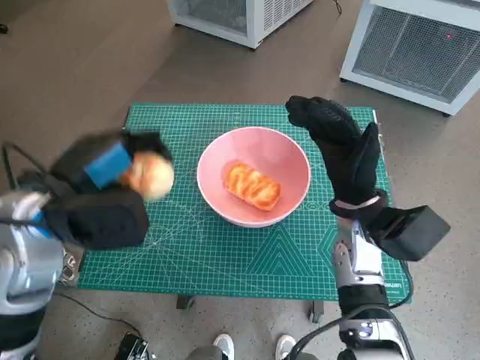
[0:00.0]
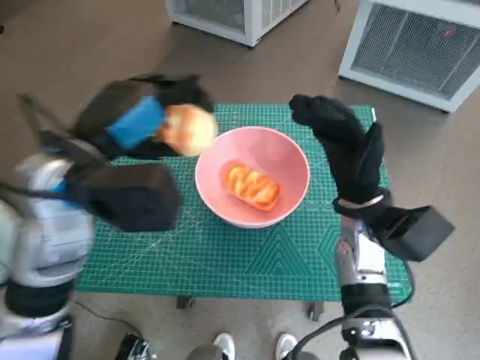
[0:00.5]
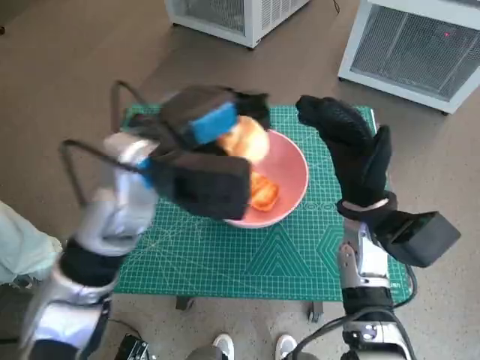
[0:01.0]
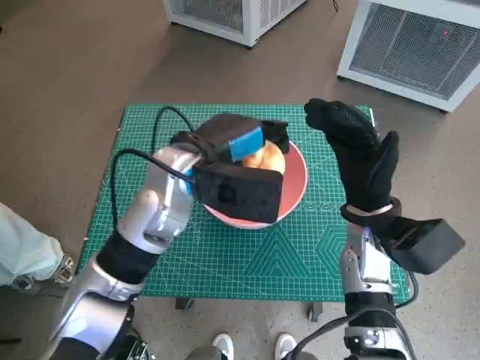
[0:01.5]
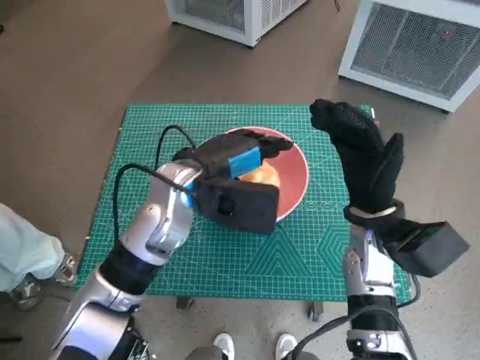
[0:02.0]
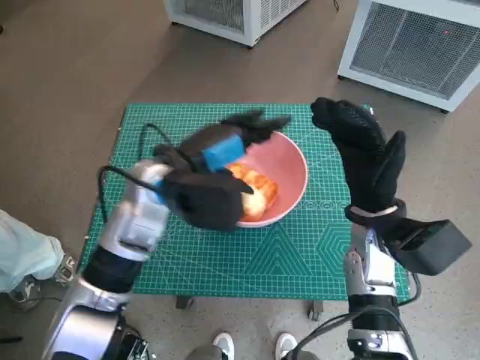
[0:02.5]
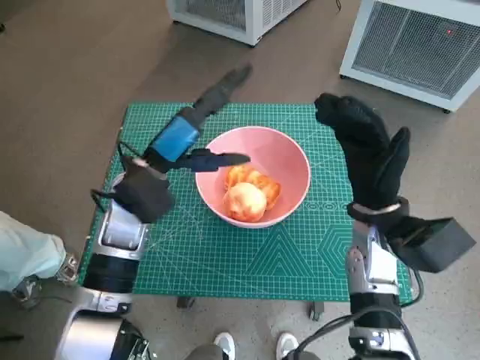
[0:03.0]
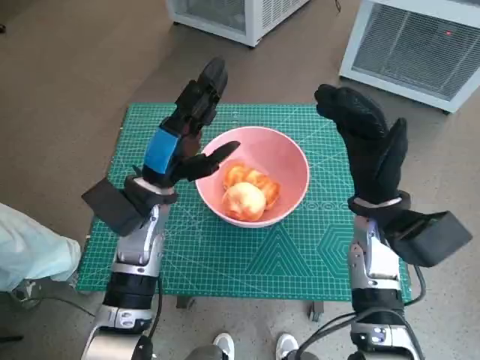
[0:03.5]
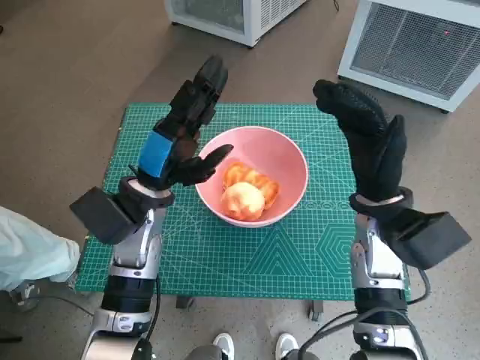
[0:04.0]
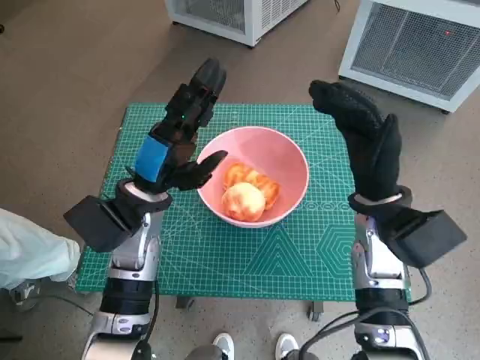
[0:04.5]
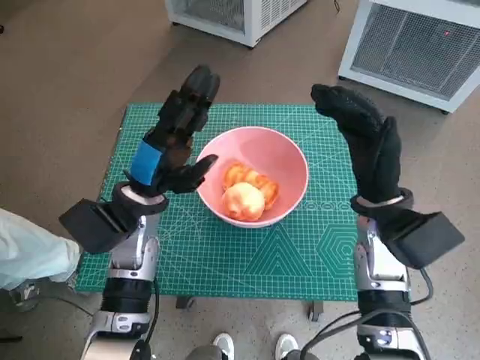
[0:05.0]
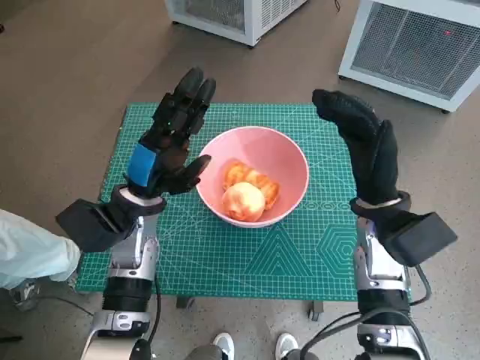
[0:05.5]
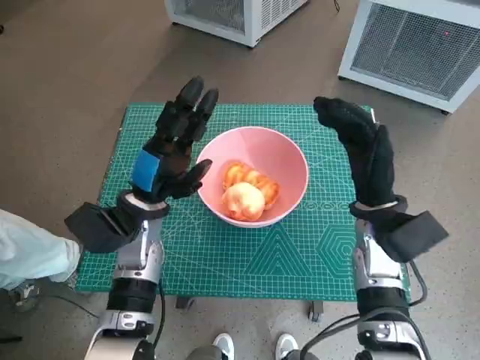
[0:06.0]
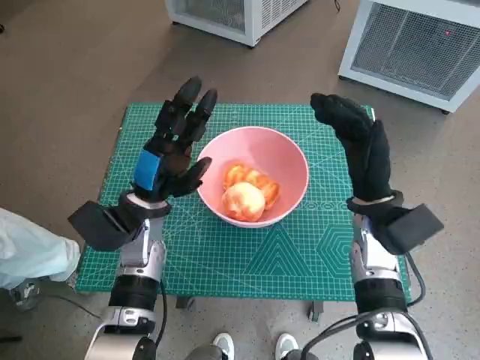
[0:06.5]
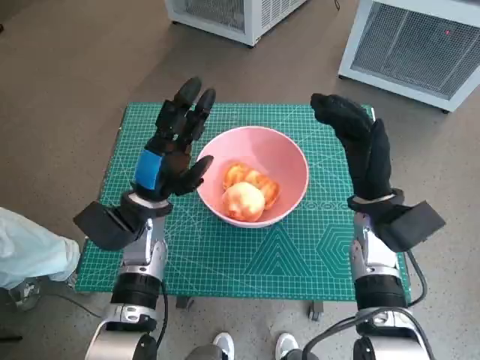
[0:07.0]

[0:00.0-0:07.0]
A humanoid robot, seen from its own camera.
Task of the whole recording: Push the bowl into the center of the table and put the bread into the bowl.
0:00.0 to 0:02.0: The left hand travels to the right and forward by approximately 15 cm.
0:02.0 to 0:03.5: The left hand shifts approximately 5 cm to the left.
0:03.5 to 0:07.0: The hands stay close to where they were, moving slightly.

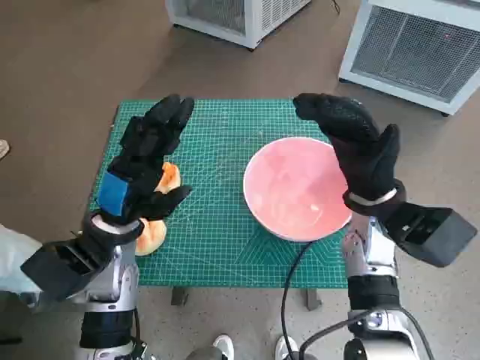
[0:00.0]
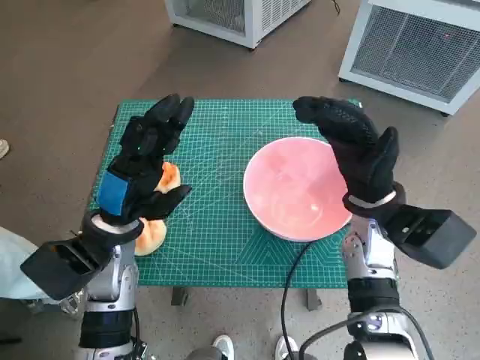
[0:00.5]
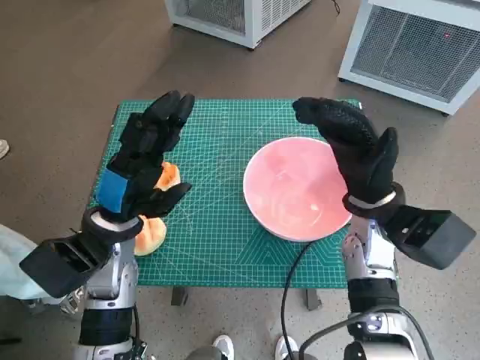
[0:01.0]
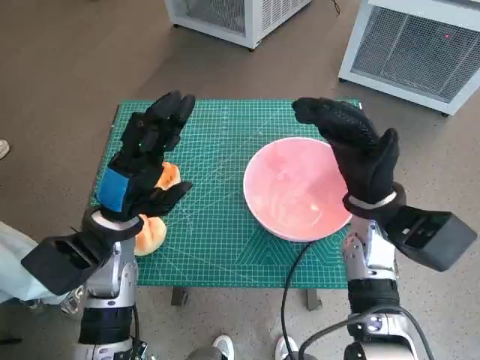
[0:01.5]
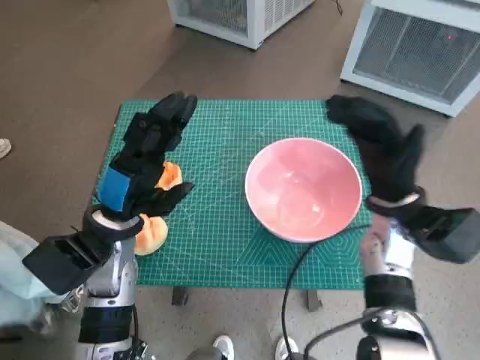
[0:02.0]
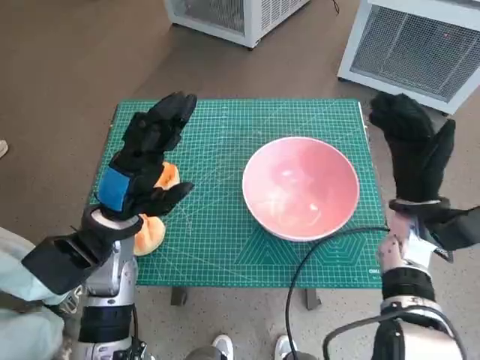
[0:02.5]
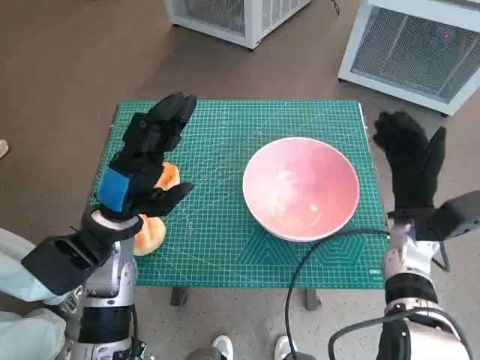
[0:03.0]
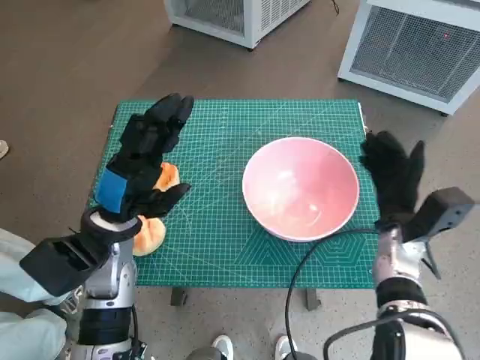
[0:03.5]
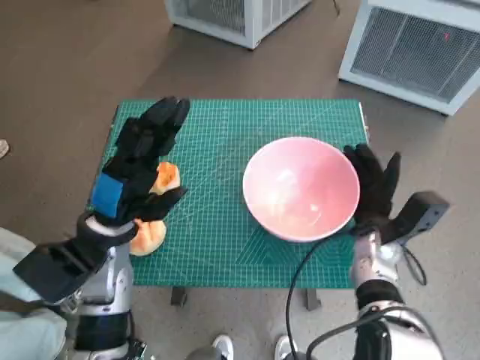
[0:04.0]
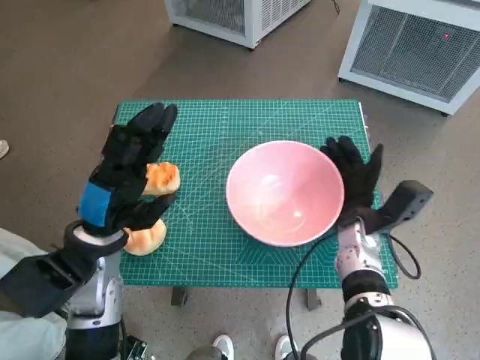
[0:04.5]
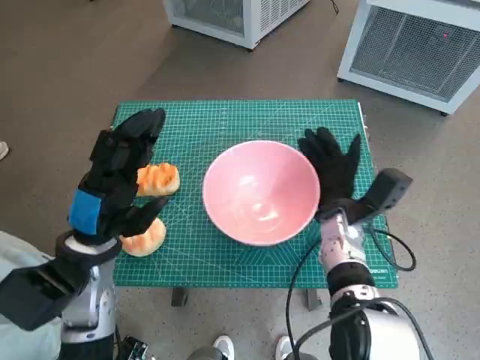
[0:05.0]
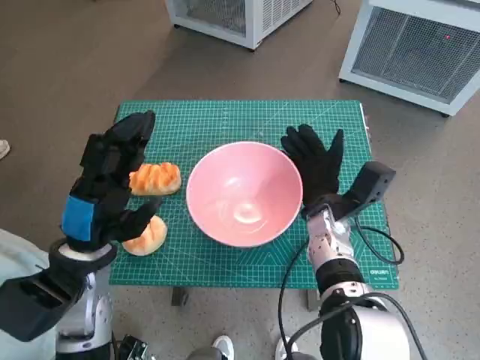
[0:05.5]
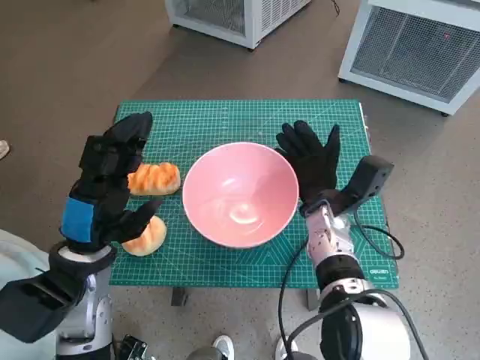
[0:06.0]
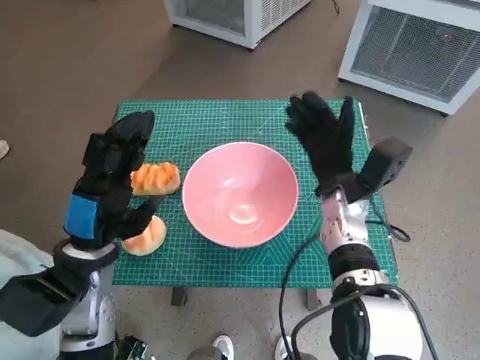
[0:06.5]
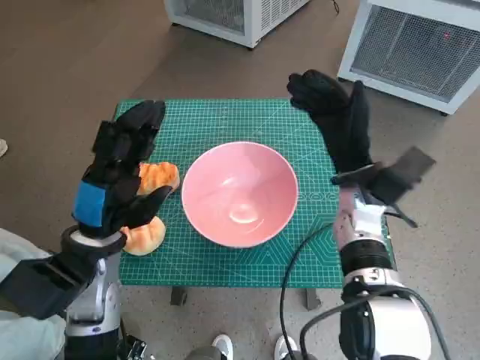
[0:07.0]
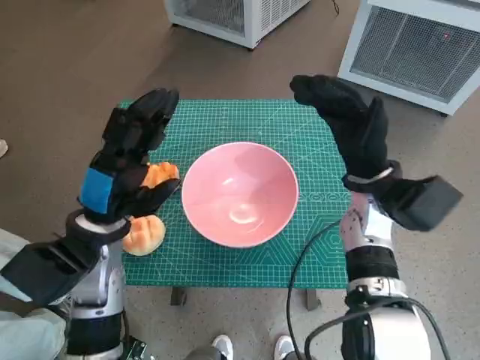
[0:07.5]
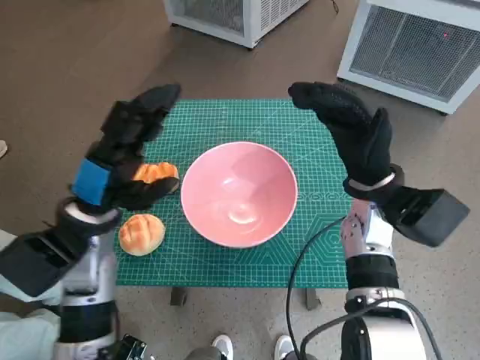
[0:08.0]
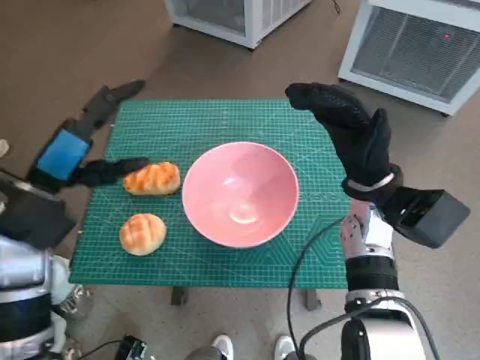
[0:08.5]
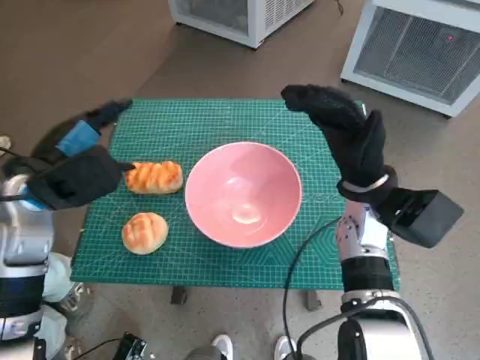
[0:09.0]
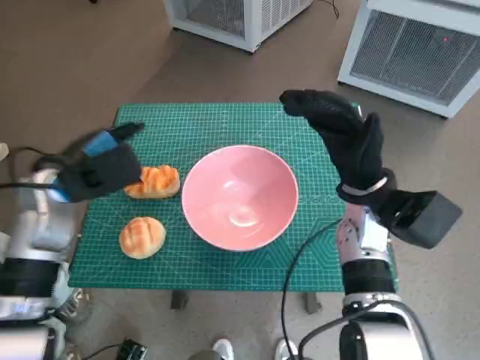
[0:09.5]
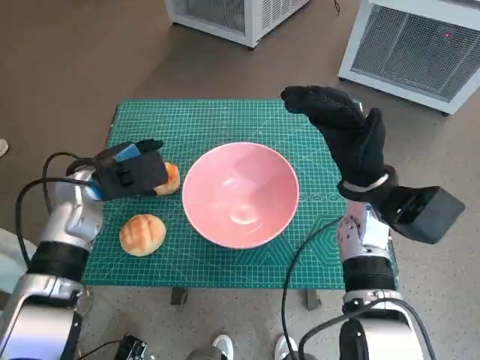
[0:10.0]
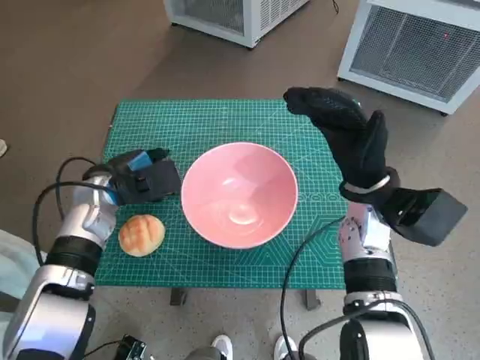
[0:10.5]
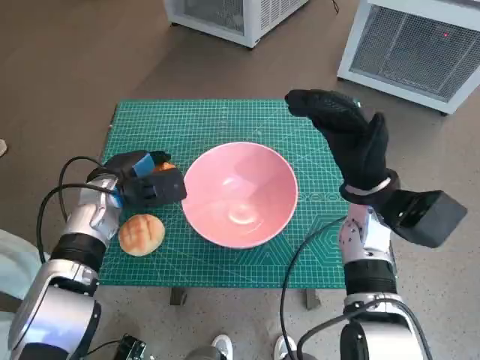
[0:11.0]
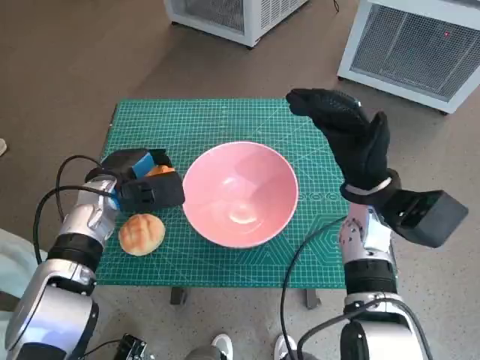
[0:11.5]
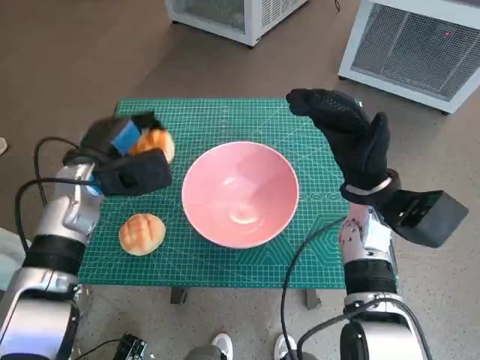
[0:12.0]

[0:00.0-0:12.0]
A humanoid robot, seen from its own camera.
Task of the whole recording: Push the bowl into the center of the table and put the bread into the bowl.
Step, 0:00.0 to 0:06.0: Move the pink bowl to the center of table with right hand.
Step, 0:06.5 to 0:11.0: Grasp the long bread with left hand.
0:02.0 to 0:04.0: The right hand goes some 10 cm downward.
0:04.0 to 0:06.0: The right hand heads to the left, covering approximately 10 cm.
0:06.0 to 0:08.0: The right hand heads upward and to the right, covering roughly 10 cm.
0:08.0 to 0:10.0: The left hand goes roughly 5 cm forward.
0:10.0 to 0:12.0: The hands stay close to where they were, moving slightly.

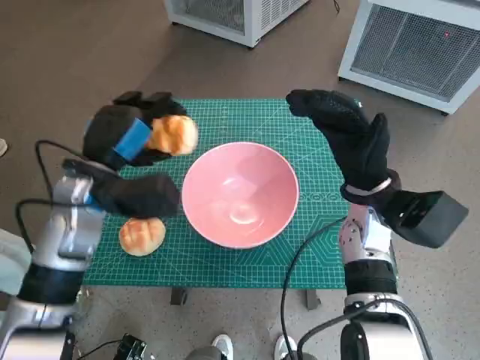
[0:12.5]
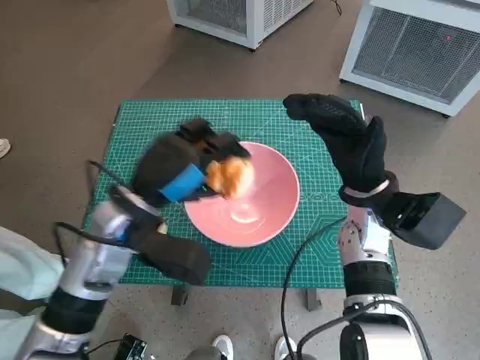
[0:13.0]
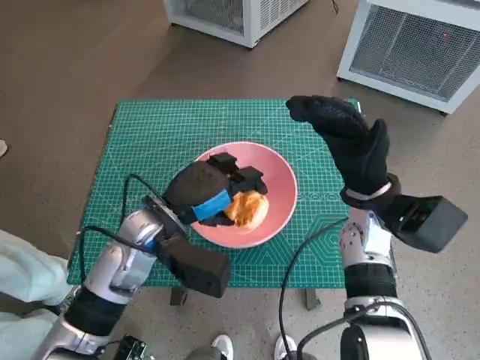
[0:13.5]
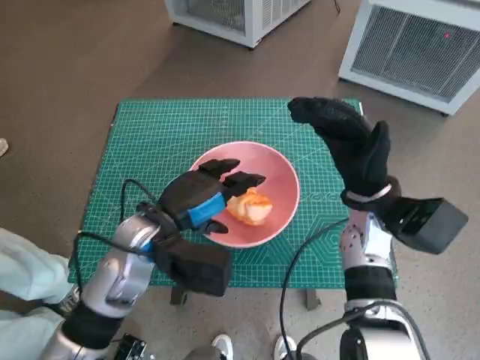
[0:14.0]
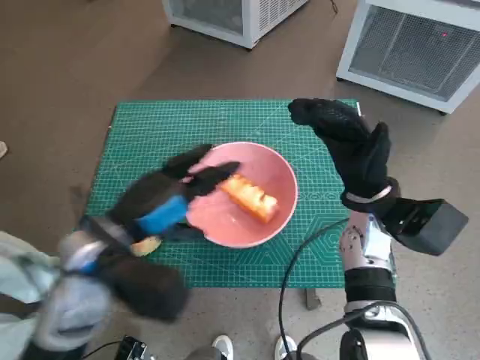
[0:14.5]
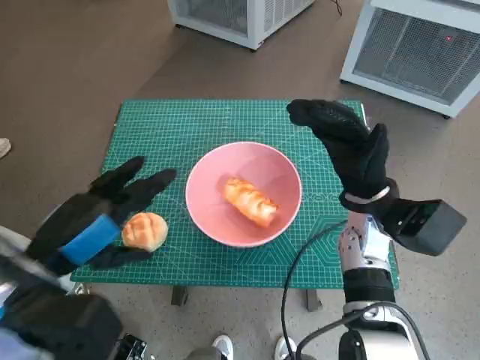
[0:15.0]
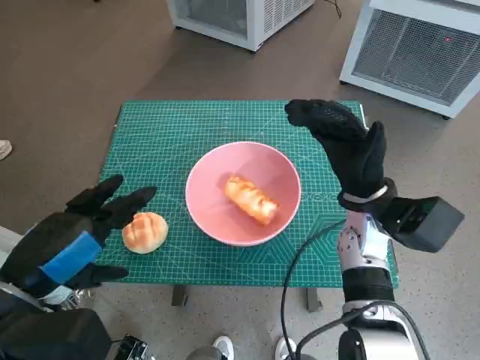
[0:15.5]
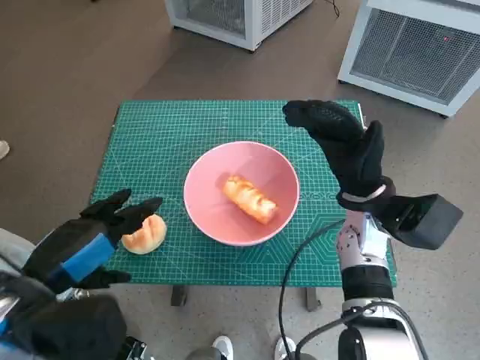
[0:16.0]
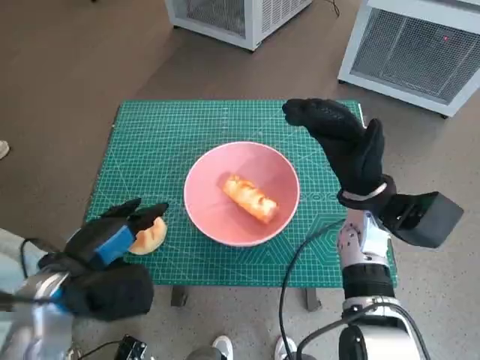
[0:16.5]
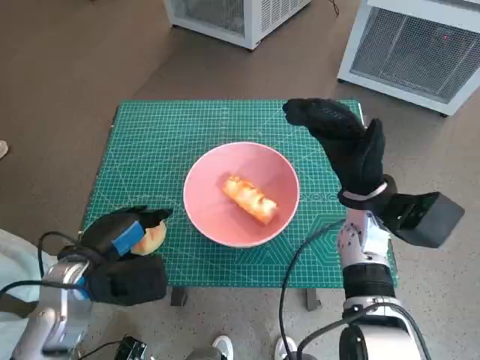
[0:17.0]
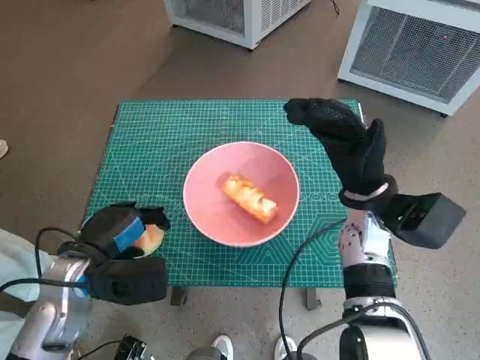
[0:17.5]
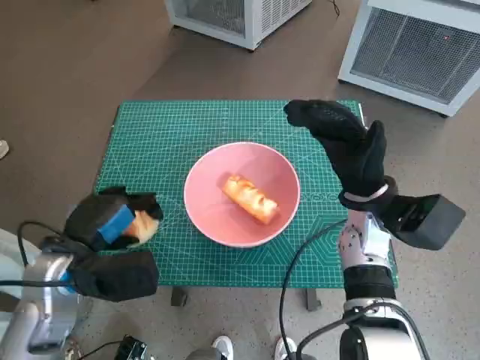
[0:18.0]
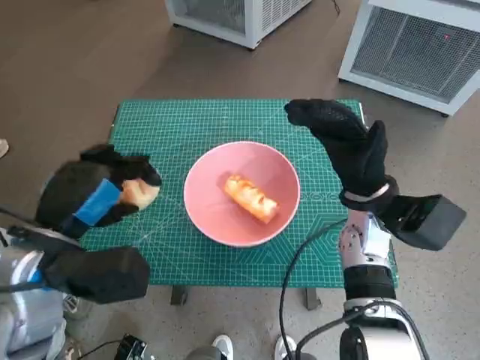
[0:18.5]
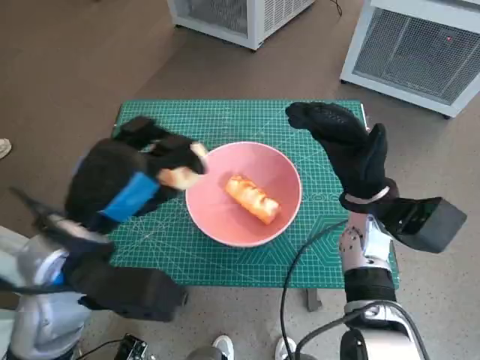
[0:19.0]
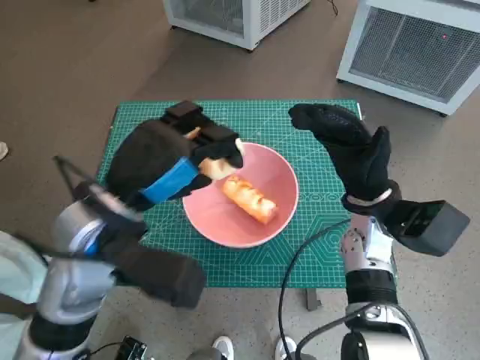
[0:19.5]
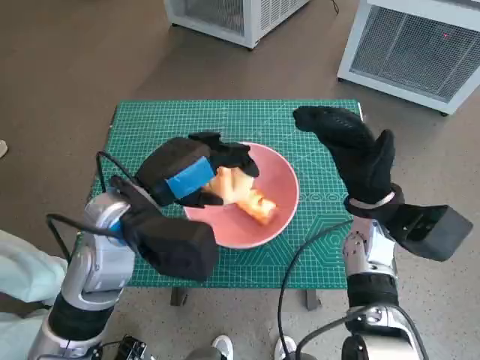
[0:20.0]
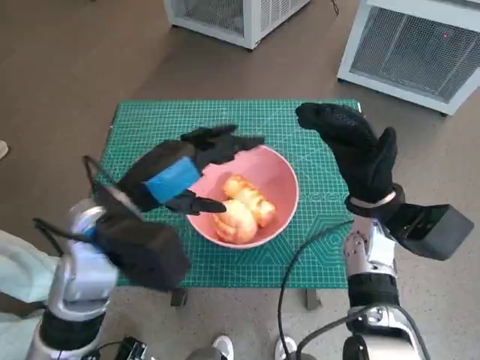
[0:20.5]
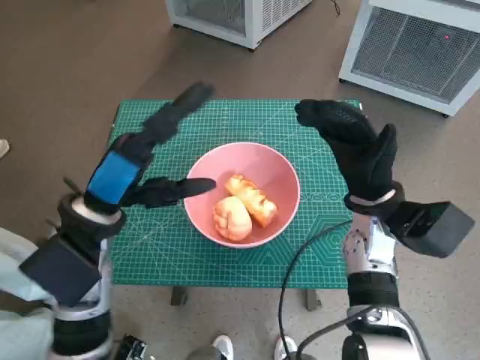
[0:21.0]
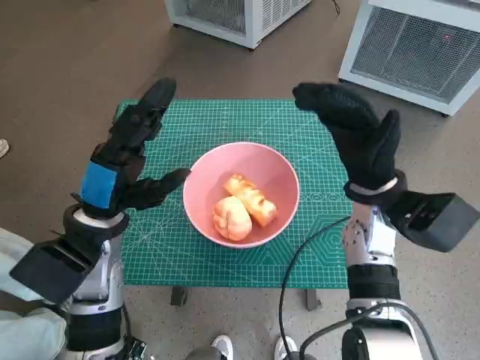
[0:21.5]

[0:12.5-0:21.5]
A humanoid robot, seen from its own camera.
Task of the whole recording: Push the bowl into the center of the table and put the bread into the bowl.
Step, 0:14.5 to 0:17.0: Grasp the round bread with left hand.
Step, 0:17.5 to 0:20.5: Place the round bread in pink bowl with left hand.
0:12.5 to 0:14.5: The left hand heads backward, covering about 5 cm.
0:14.5 to 0:17.0: The left hand travels downward and to the left by some 10 cm.
0:17.0 to 0:19.5: The left hand shifts roughly 15 cm upward and to the right.
0:19.5 to 0:21.5: The left hand heads downward, covering roughly 5 cm.
